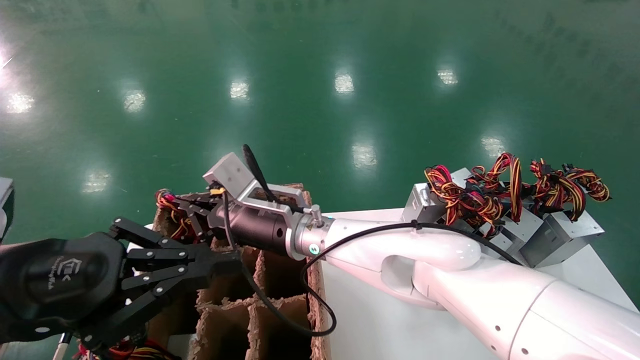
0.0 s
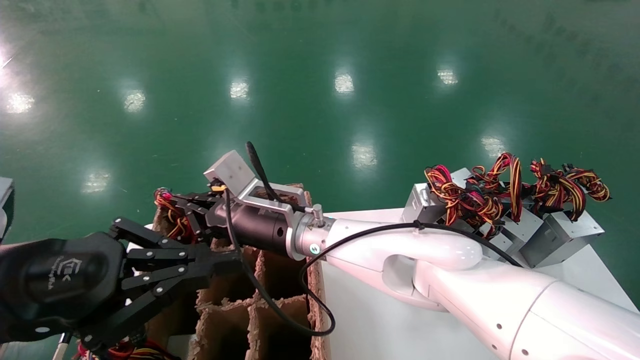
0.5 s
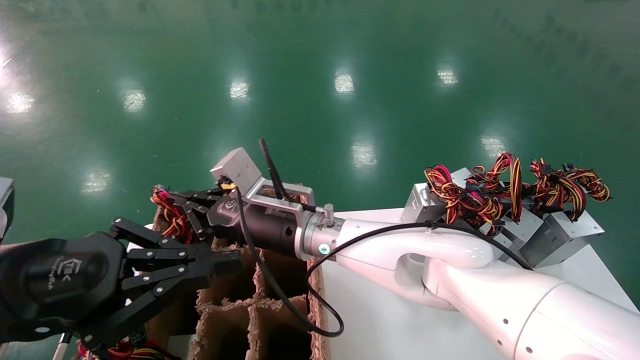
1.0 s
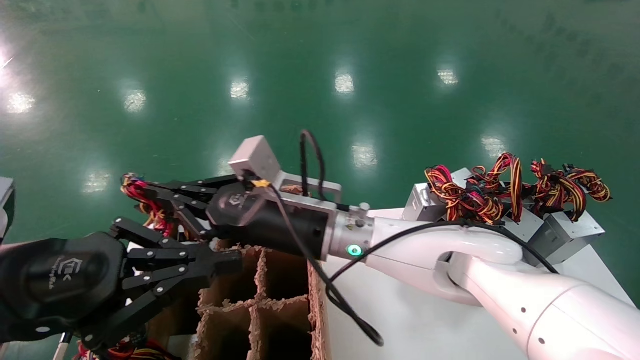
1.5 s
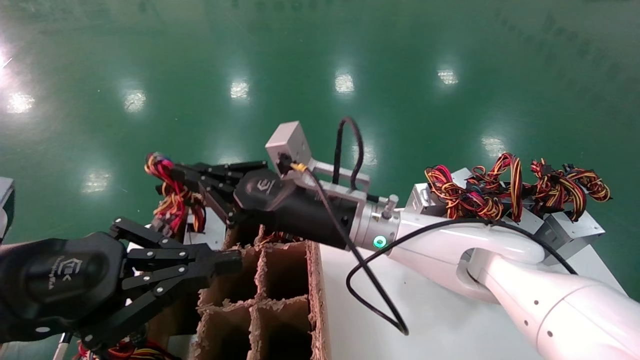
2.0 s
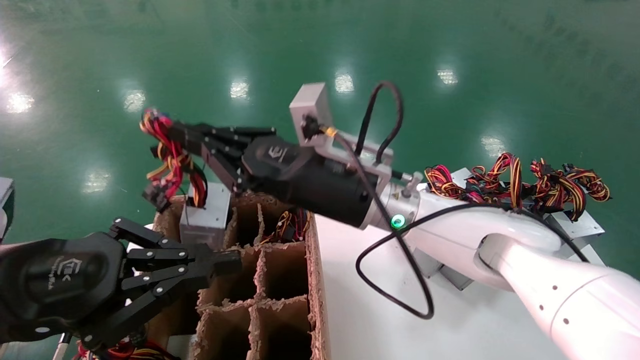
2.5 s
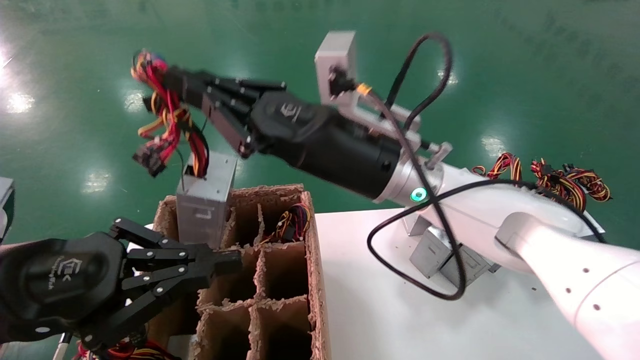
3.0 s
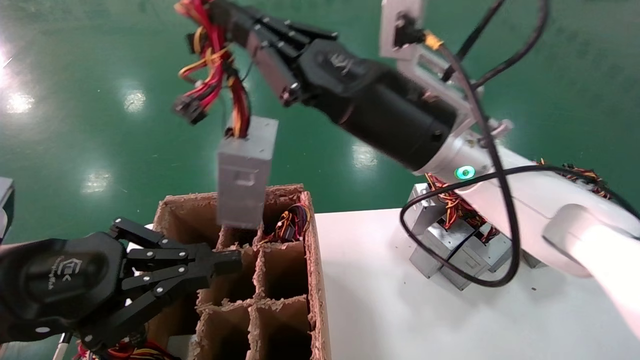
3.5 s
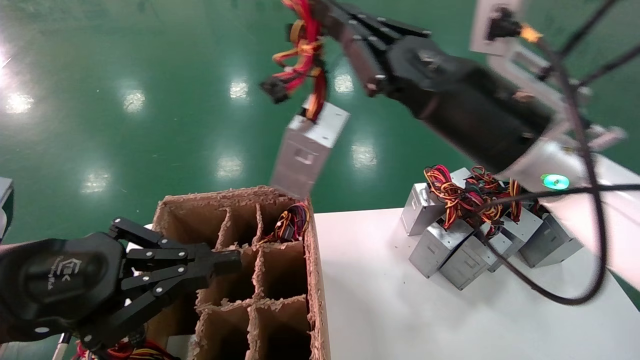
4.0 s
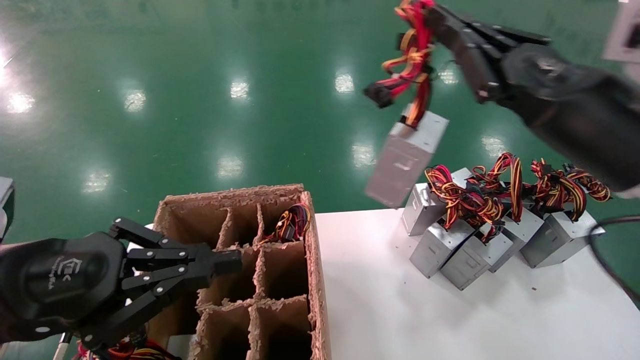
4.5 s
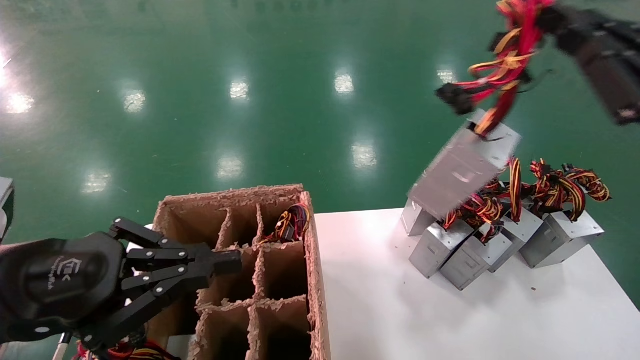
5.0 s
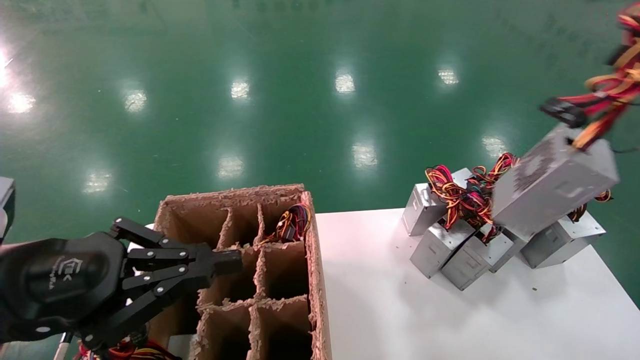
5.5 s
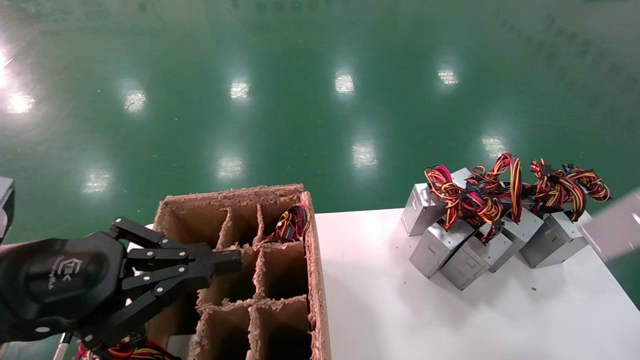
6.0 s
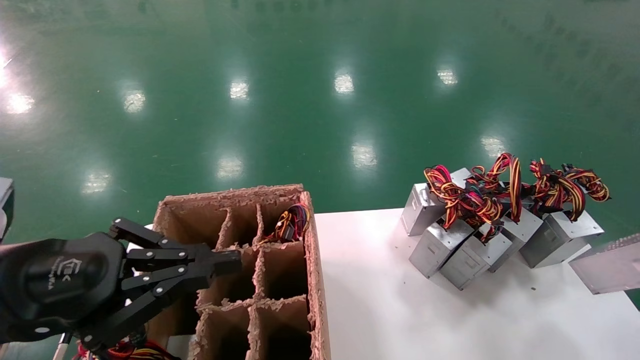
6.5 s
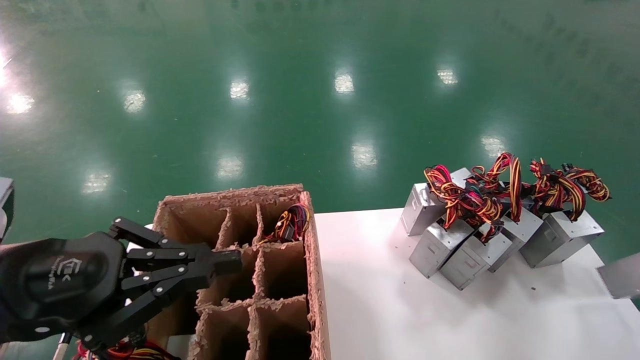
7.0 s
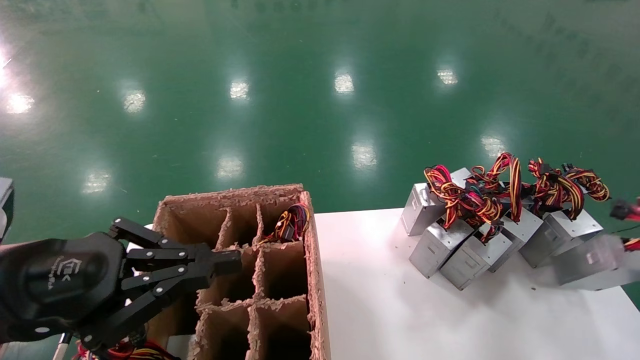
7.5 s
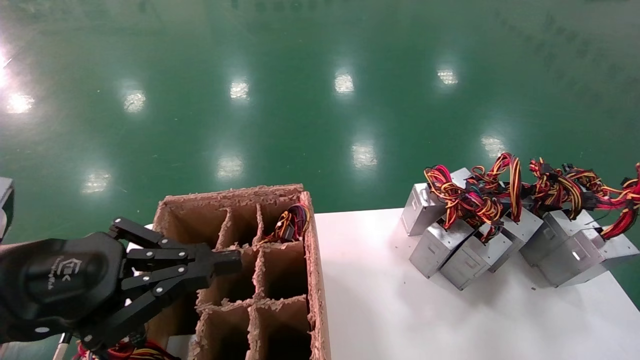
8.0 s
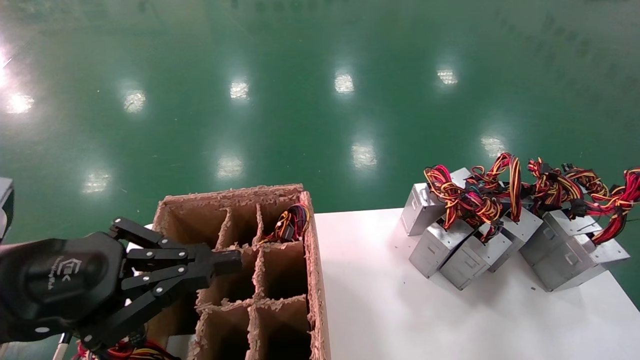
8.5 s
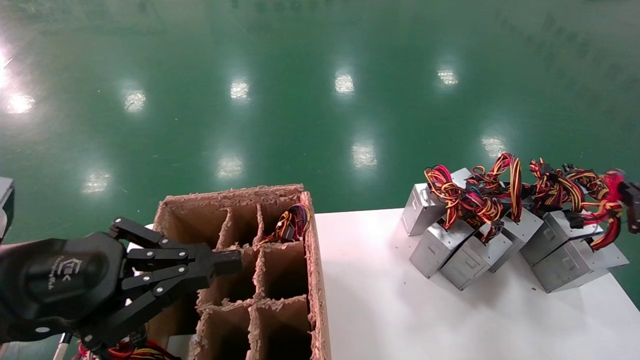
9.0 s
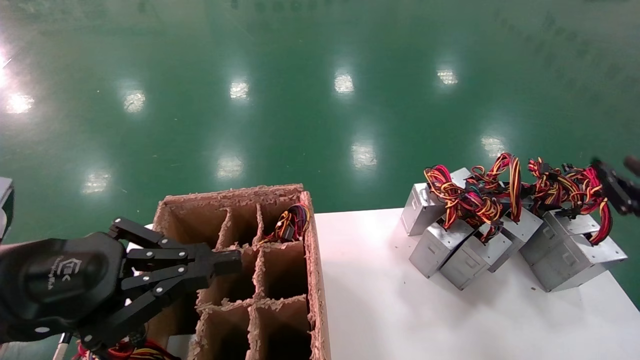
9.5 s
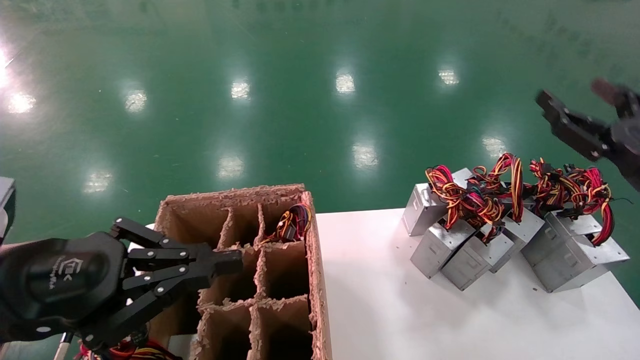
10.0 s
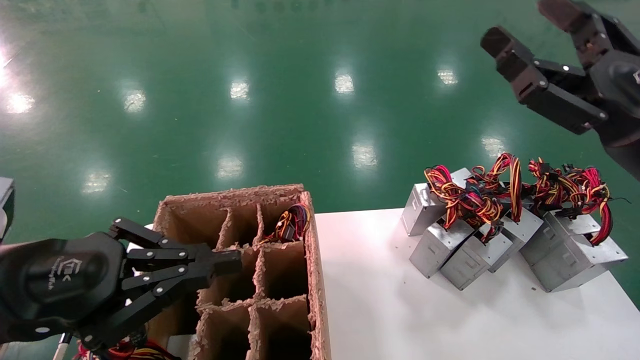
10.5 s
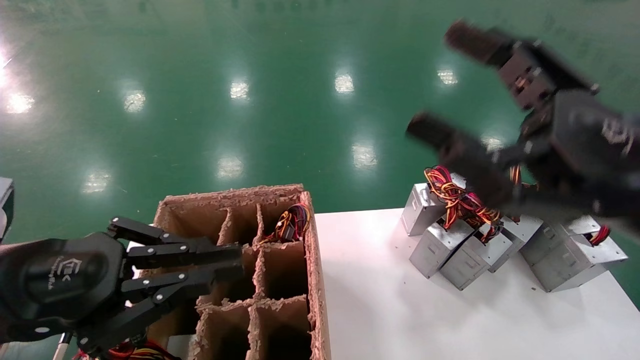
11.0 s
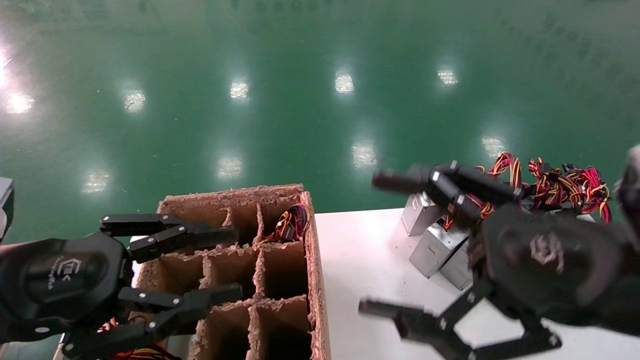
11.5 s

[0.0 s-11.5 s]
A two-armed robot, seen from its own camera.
Step, 0.0 to 9.5 s: Place the main unit power supply in the designated area.
0.0 to 2.0 s: The right gripper heads to the right, covering some 5 cm.
2.0 to 4.0 s: The right gripper shifts some 20 cm to the right, upward and backward.
4.0 to 6.0 s: The right gripper travels to the right and backward by approximately 35 cm.
6.0 to 7.5 s: The right gripper travels downward and forward by roughly 15 cm.
7.5 to 9.5 s: The right gripper goes about 10 cm forward and to the left.
9.5 to 11.5 s: The right gripper is displaced to the left and backward by some 25 cm, and opens its fingers.

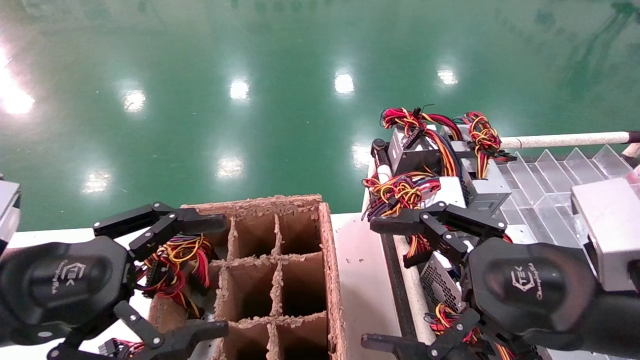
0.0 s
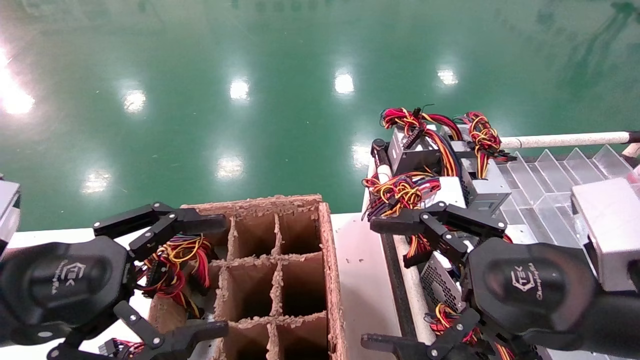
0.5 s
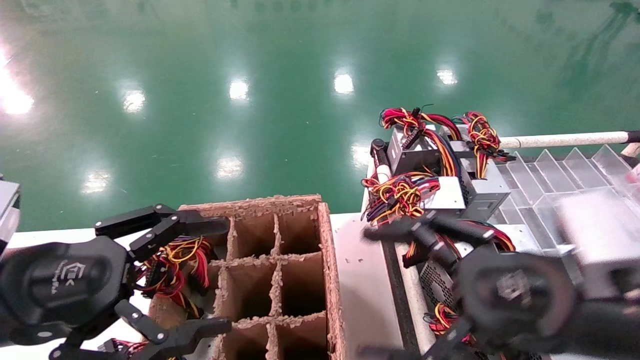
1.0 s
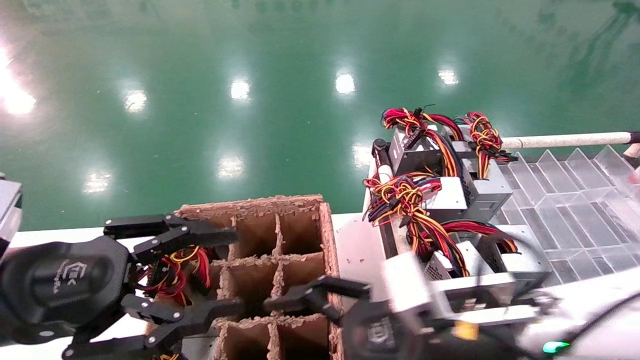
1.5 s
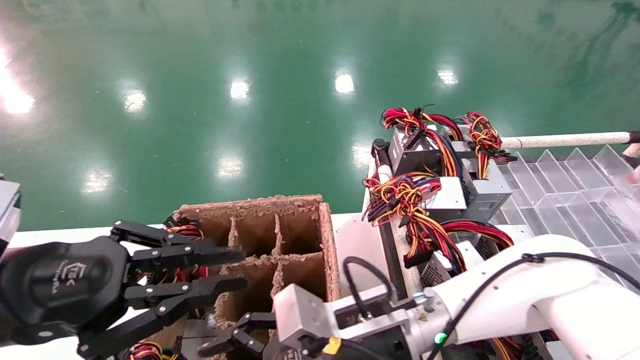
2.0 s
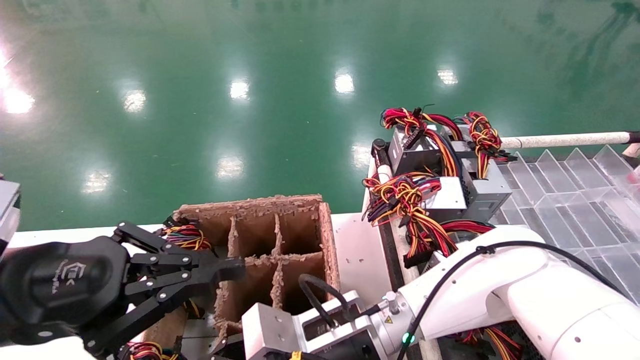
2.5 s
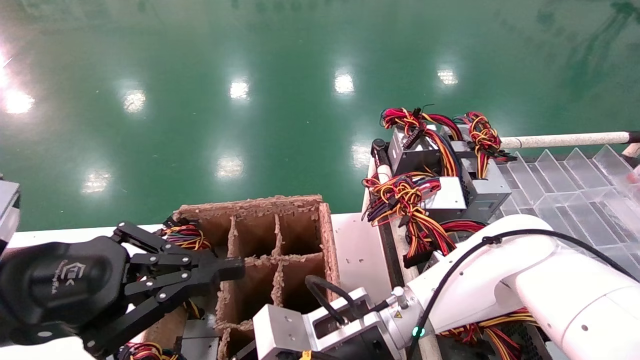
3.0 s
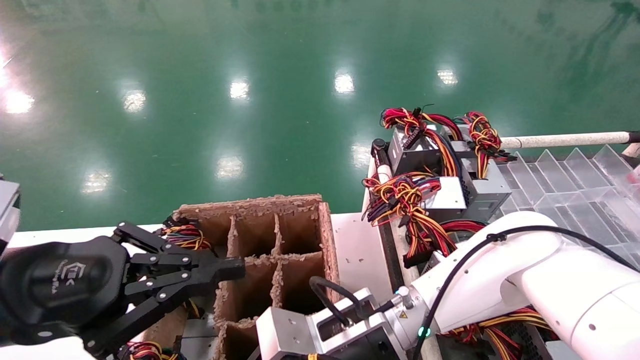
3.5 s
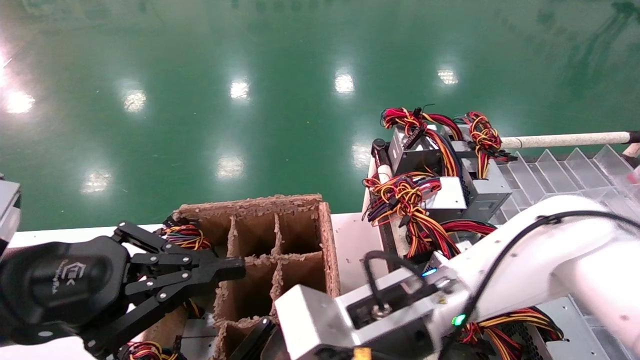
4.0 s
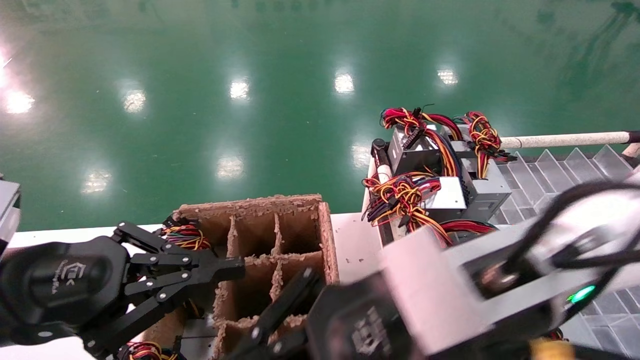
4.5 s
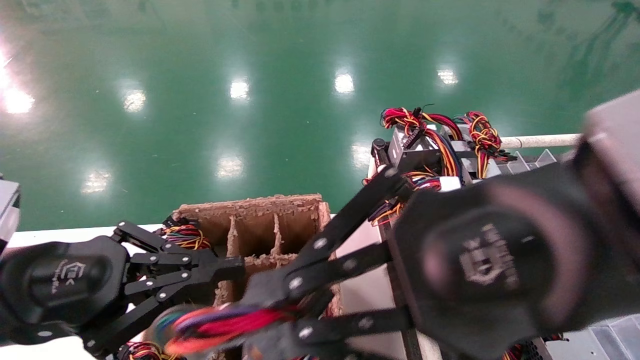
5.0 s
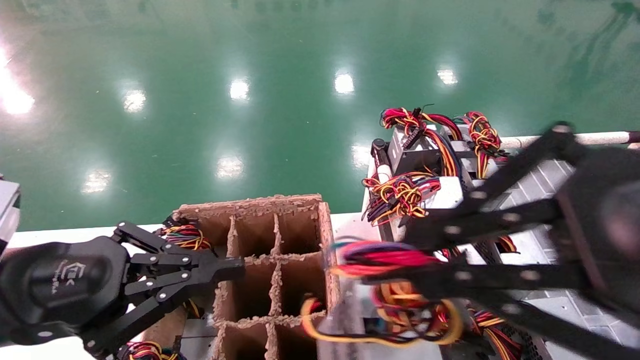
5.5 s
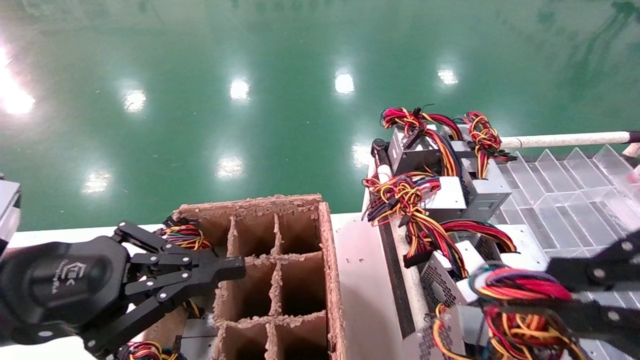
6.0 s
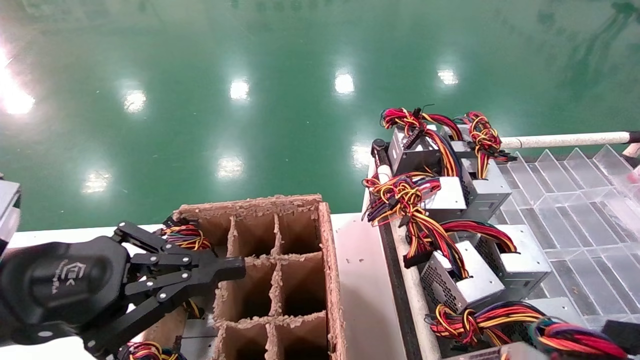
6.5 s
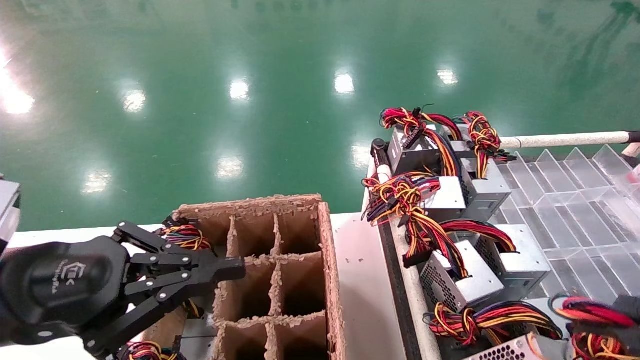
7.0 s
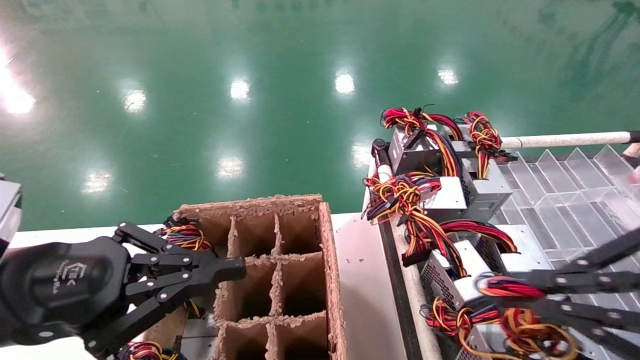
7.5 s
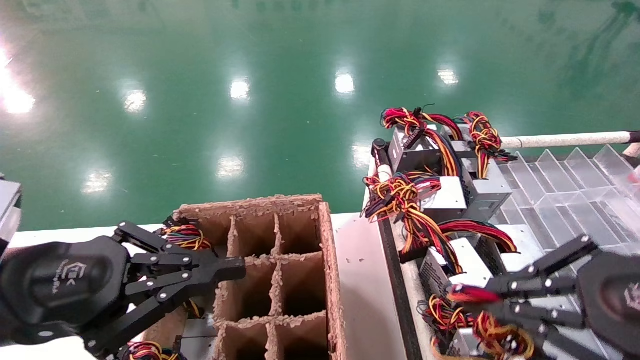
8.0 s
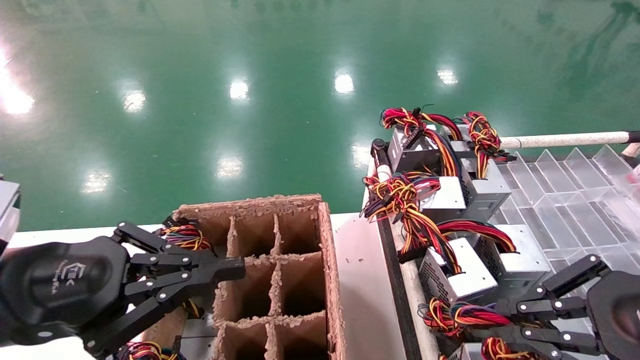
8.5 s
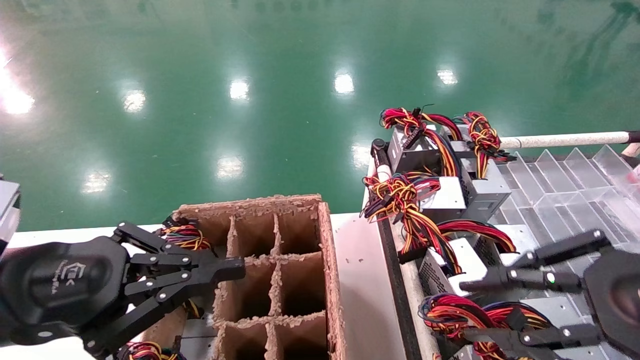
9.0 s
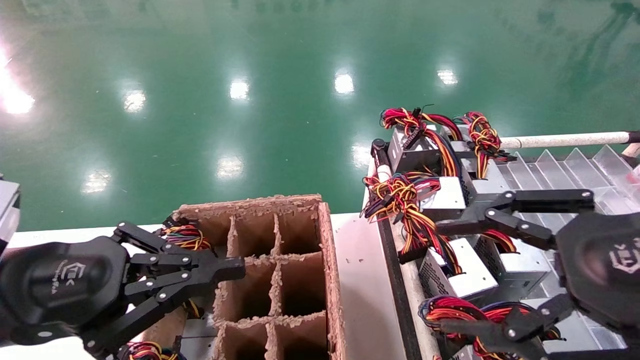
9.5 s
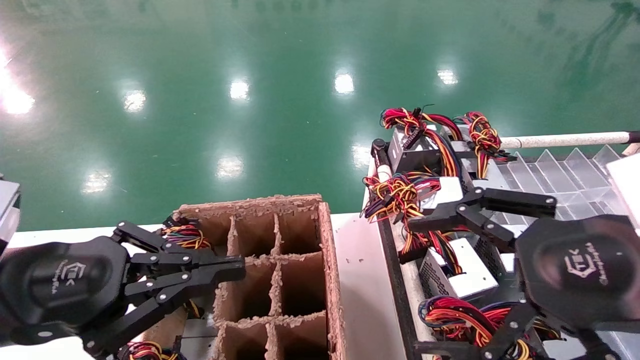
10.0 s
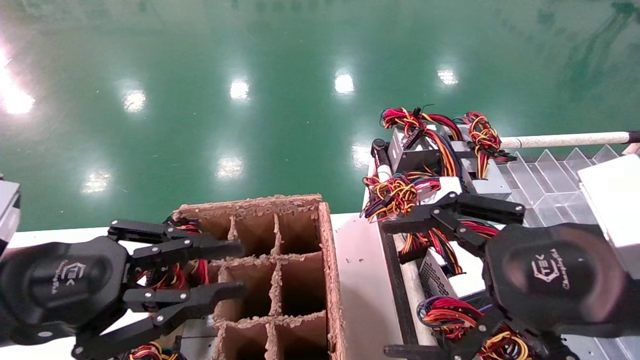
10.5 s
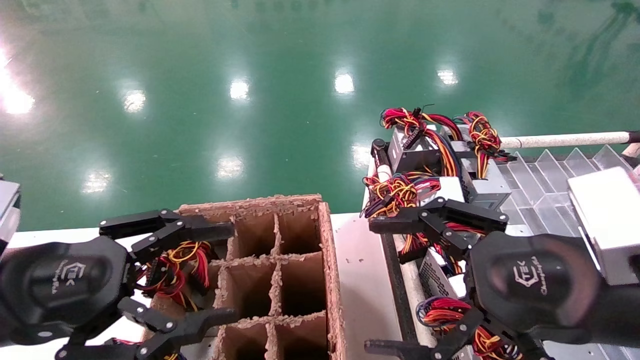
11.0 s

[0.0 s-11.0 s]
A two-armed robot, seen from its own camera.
Step, 1.5 to 3.5 s: Grab the main unit power supply from the containment box.
Step, 4.0 to 9.0 s: Place the main unit power supply in the designated area.
0.0 to 2.0 s: The left gripper closes its fingers. The right gripper shifts roughly 25 cm to the left, downward and forward.
2.0 to 3.5 s: The right gripper closes.
3.5 to 5.5 s: The right gripper moves upward, backward and to the right, approximately 35 cm.
5.5 to 7.5 s: The right gripper shifts about 10 cm to the right and downward.
7.5 to 9.0 s: The grippers move only a little.
9.0 to 11.0 s: The right gripper shifts approximately 10 cm to the left and forward, and opens up. Meanwhile the left gripper opens.
